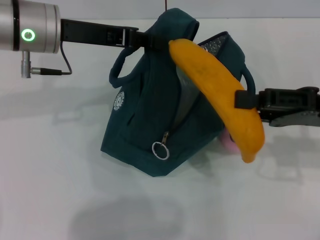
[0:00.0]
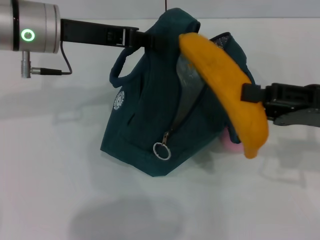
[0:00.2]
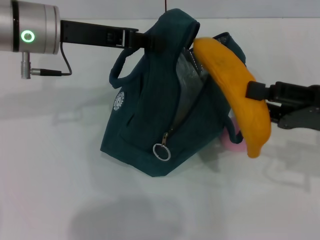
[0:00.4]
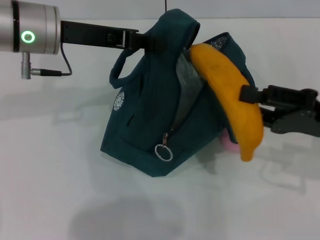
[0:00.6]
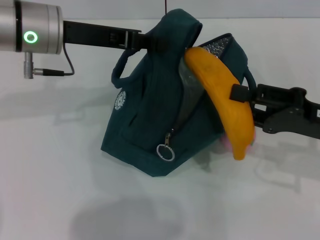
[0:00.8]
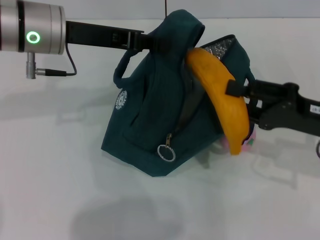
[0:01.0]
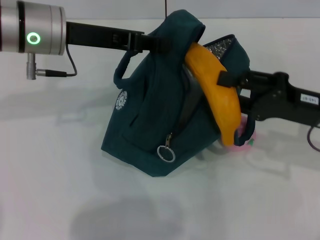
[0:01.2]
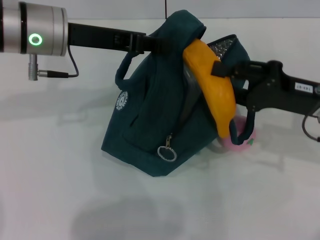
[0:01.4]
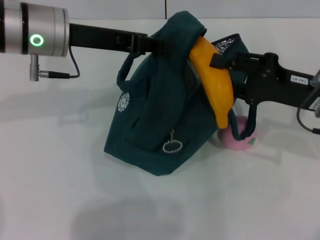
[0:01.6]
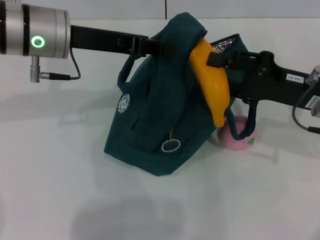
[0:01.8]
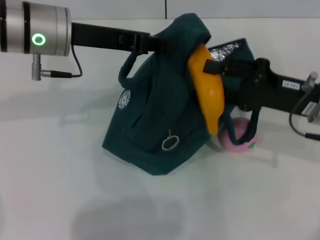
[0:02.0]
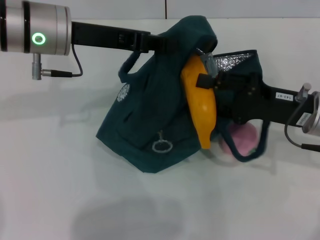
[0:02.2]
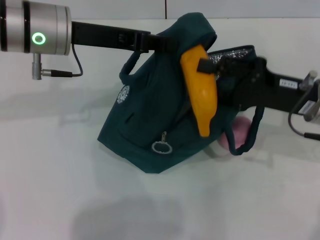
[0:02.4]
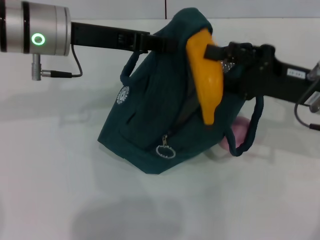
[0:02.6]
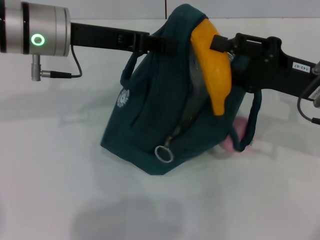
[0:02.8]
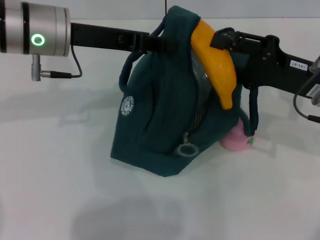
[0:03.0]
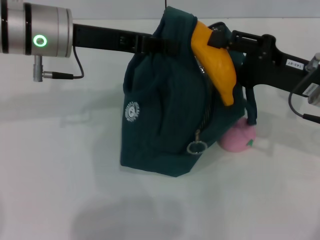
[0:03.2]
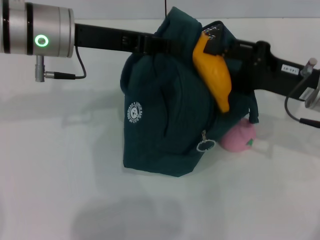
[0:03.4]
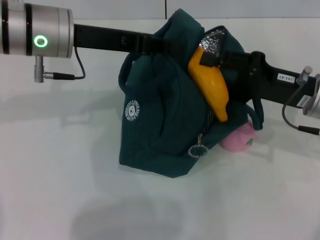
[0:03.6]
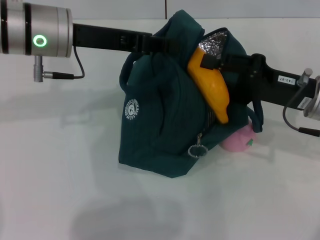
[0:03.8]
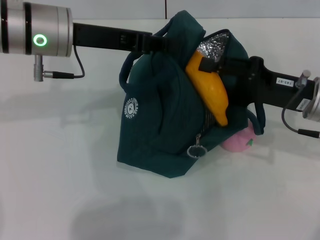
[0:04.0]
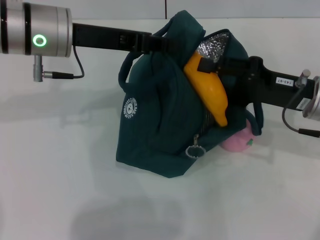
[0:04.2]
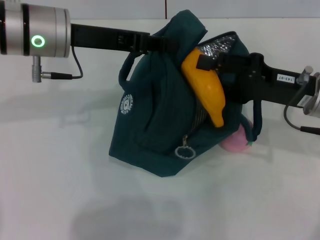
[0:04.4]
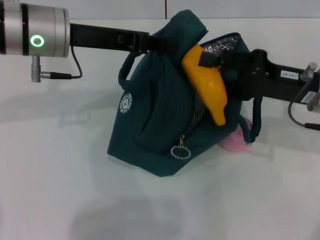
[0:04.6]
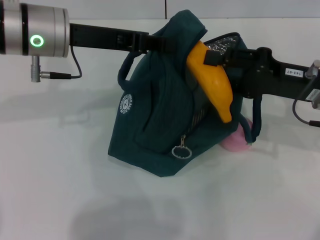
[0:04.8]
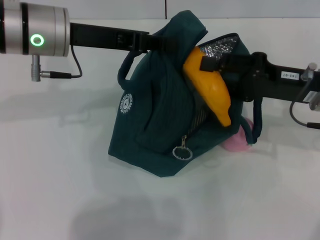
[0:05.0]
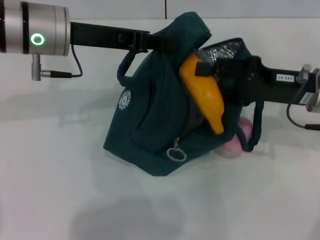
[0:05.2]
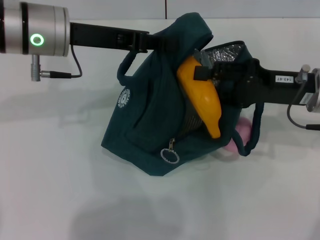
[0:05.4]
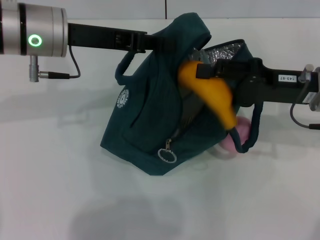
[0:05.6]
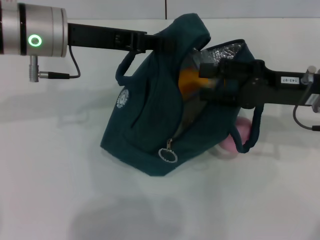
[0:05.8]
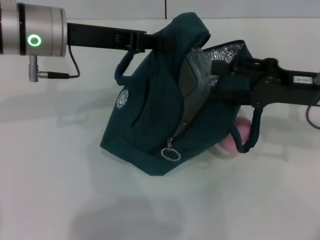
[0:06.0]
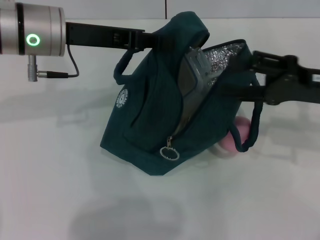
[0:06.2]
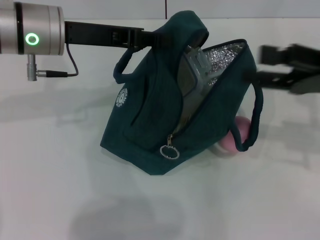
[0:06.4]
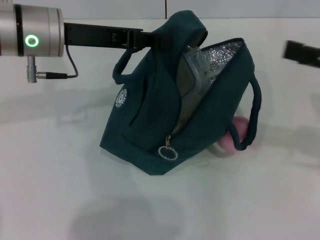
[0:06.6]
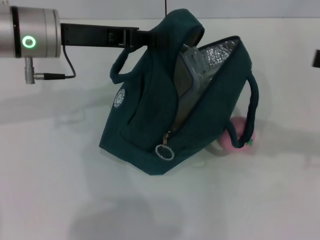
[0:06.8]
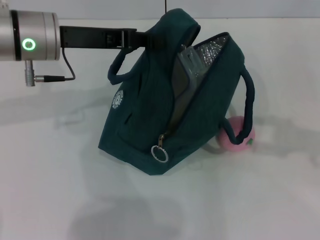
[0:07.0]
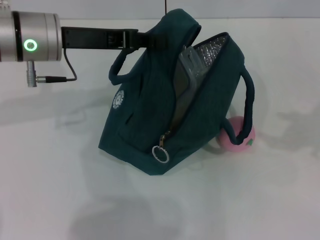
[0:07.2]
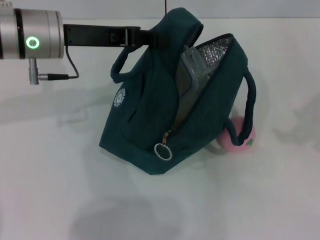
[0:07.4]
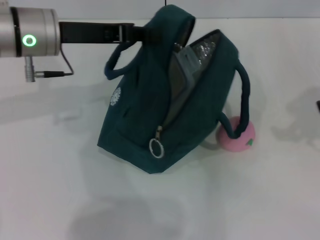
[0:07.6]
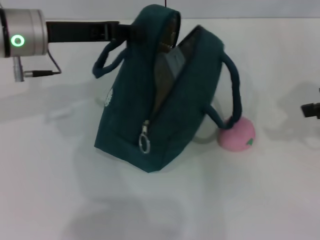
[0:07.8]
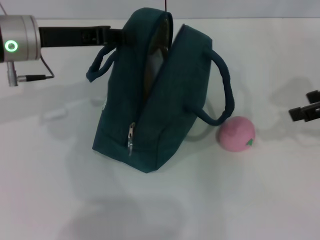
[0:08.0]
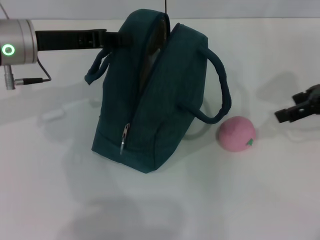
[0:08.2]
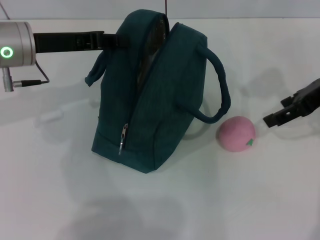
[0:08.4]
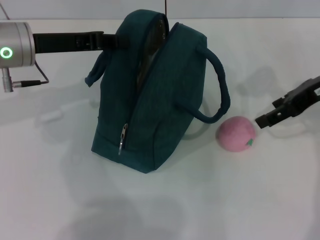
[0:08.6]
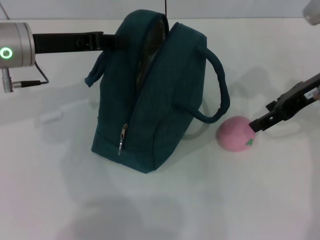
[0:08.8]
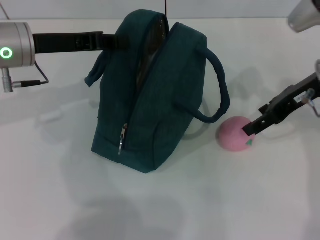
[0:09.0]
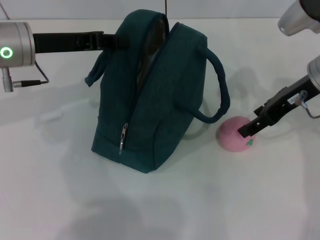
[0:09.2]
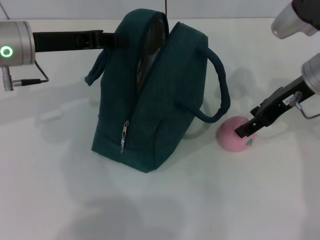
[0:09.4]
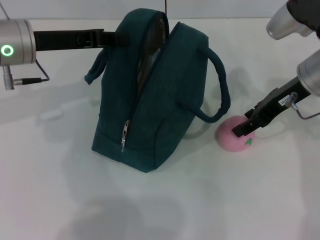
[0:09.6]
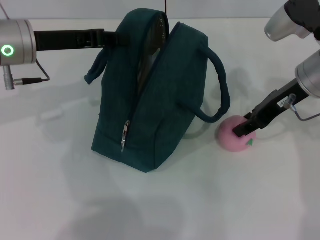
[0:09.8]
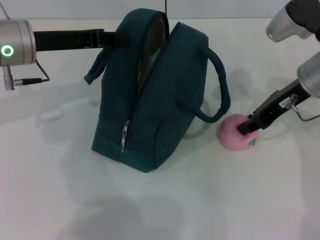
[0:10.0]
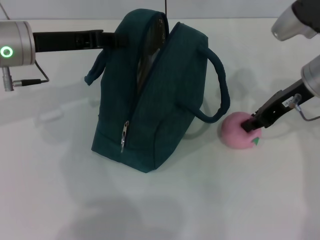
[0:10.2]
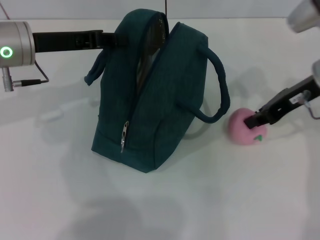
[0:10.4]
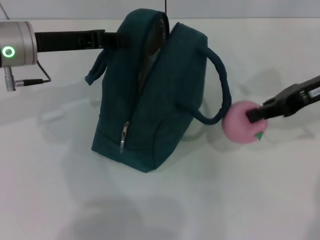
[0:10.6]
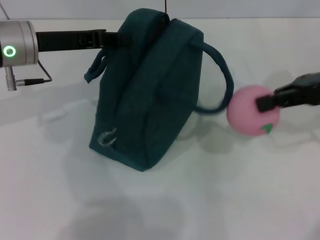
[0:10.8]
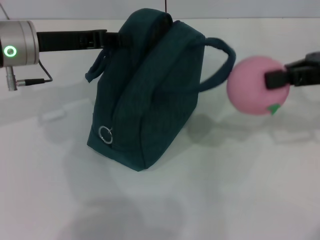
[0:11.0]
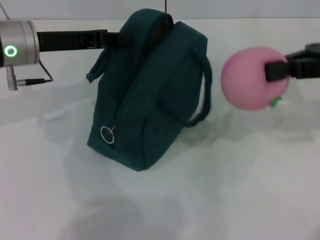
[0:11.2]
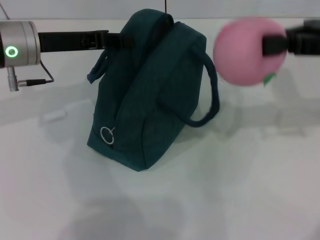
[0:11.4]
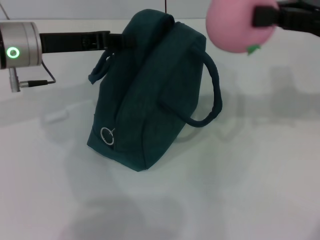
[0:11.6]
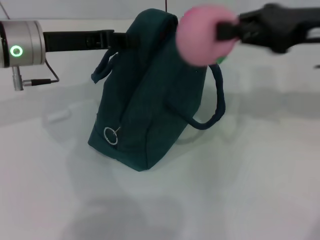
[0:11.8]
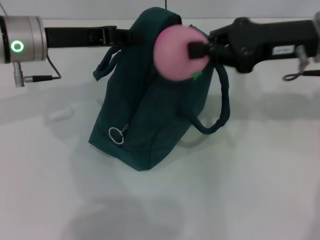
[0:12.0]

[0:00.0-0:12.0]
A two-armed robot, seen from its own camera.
Step, 0:00.0 to 0:06.6: Put the banana into the lunch bag with your right hand.
Step, 0:06.8 to 0:10.2: Grab the peach with your right hand.
0:01.6 to 0:04.4: The grippers move only a little.
0:04.4 to 0:06.0: The right gripper opens its fingers.
0:06.0 to 0:07.6: The right gripper moves upward and to the right, roughly 15 cm.
0:07.6 to 0:09.0: The right gripper travels to the left, forward and downward by about 15 cm.
0:09.0 to 0:10.4: The right gripper closes up.
0:10.4 to 0:12.0: The right gripper goes to the right and returns, about 5 cm each way.

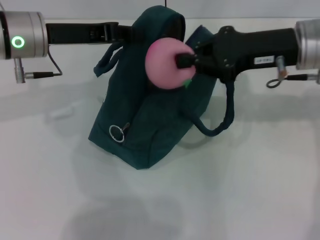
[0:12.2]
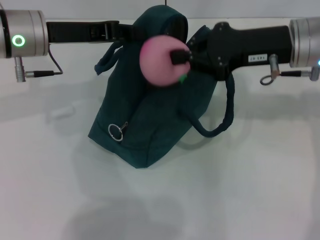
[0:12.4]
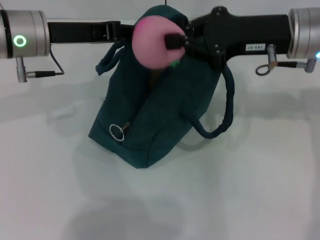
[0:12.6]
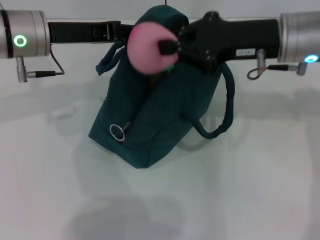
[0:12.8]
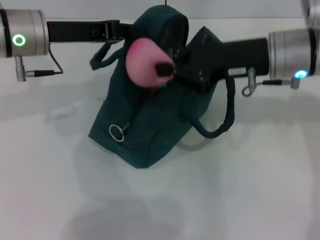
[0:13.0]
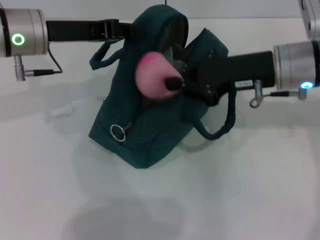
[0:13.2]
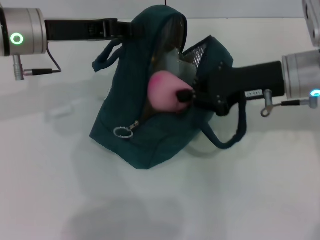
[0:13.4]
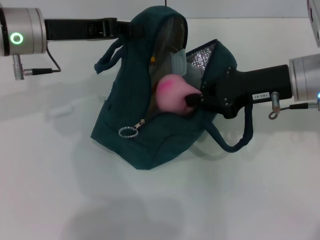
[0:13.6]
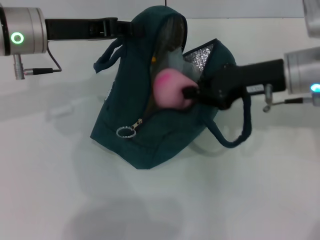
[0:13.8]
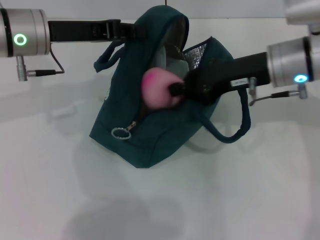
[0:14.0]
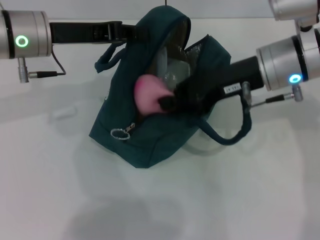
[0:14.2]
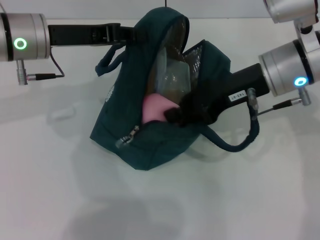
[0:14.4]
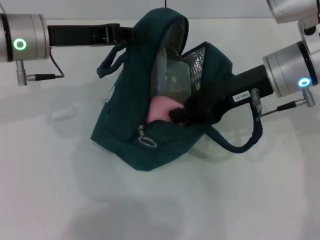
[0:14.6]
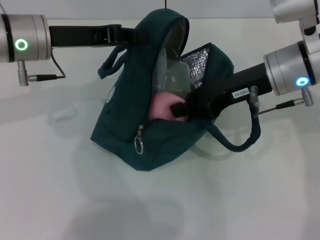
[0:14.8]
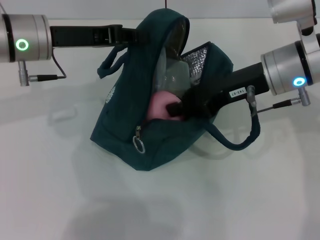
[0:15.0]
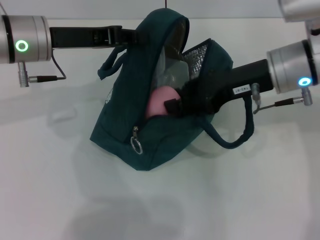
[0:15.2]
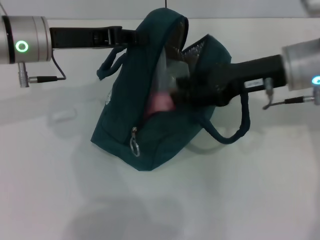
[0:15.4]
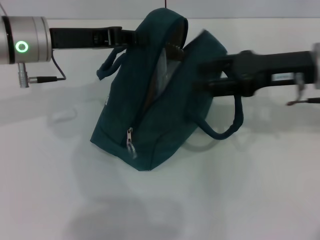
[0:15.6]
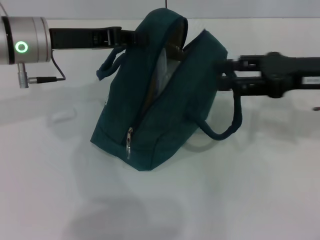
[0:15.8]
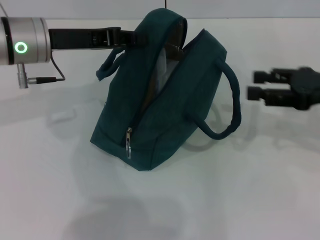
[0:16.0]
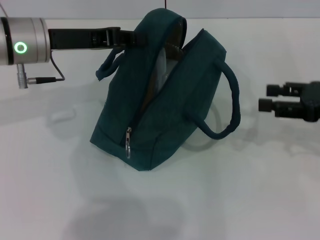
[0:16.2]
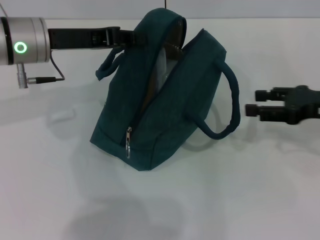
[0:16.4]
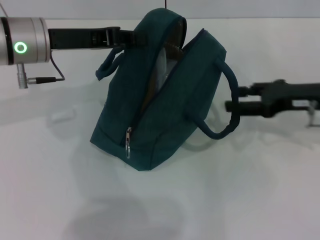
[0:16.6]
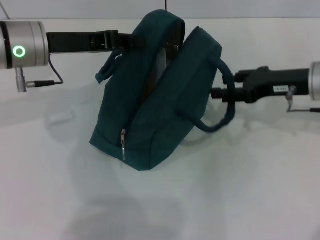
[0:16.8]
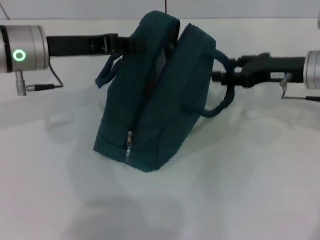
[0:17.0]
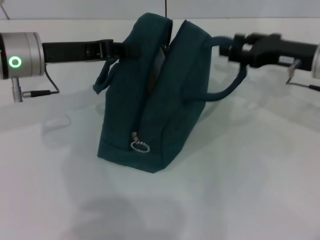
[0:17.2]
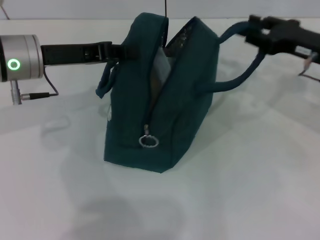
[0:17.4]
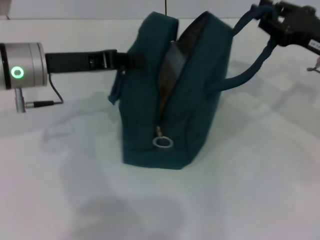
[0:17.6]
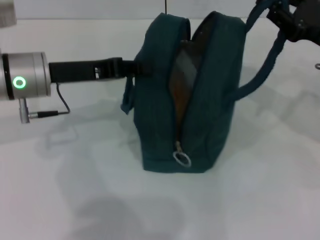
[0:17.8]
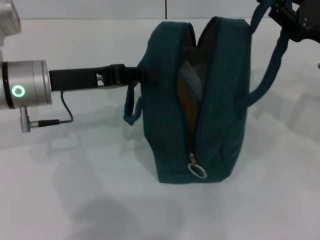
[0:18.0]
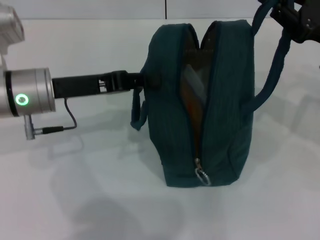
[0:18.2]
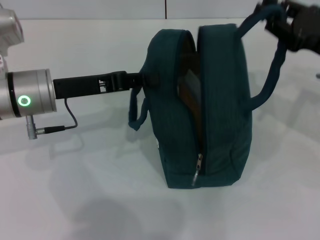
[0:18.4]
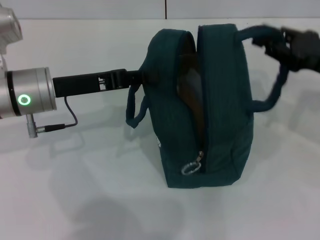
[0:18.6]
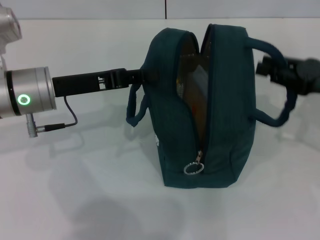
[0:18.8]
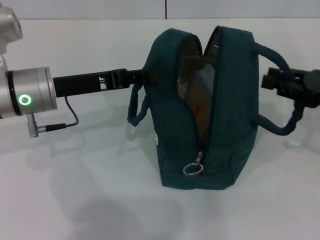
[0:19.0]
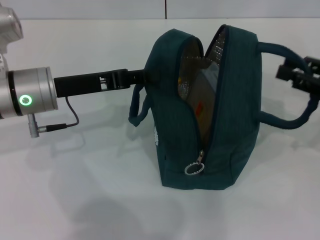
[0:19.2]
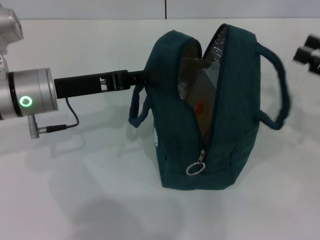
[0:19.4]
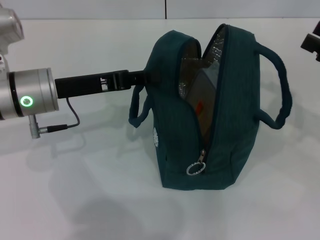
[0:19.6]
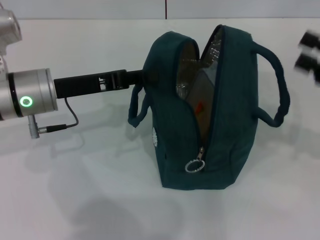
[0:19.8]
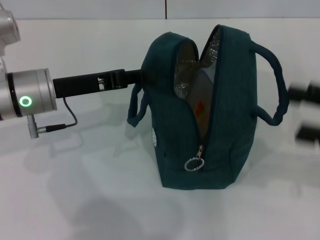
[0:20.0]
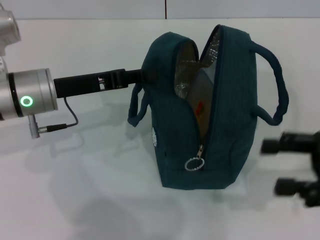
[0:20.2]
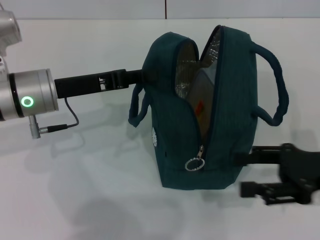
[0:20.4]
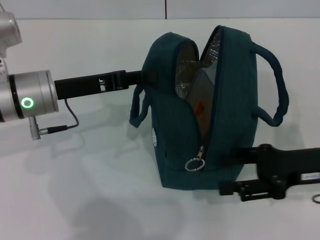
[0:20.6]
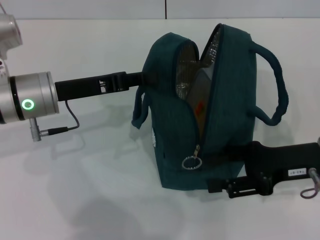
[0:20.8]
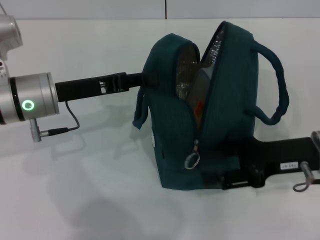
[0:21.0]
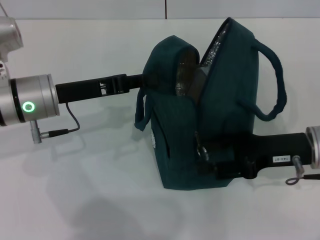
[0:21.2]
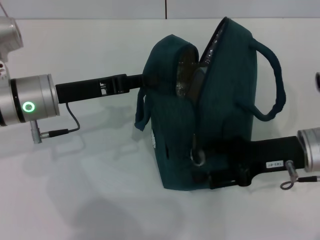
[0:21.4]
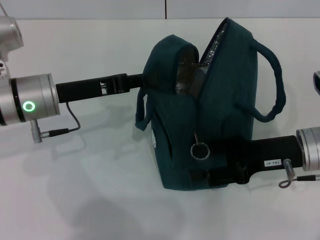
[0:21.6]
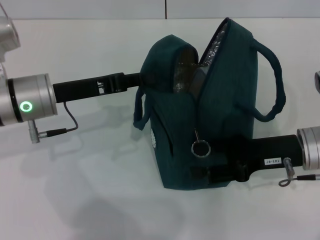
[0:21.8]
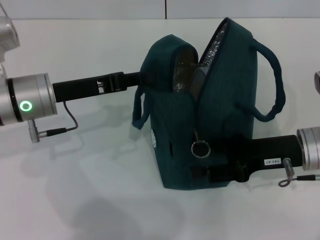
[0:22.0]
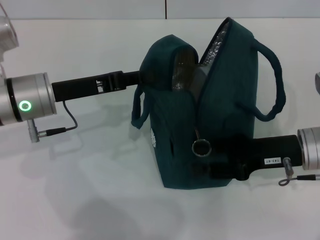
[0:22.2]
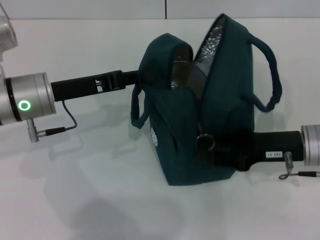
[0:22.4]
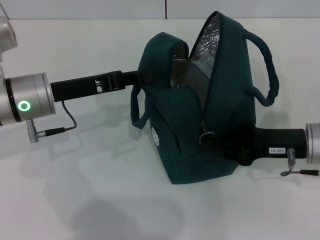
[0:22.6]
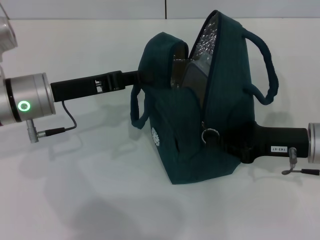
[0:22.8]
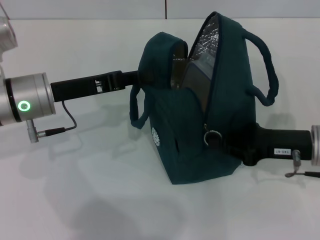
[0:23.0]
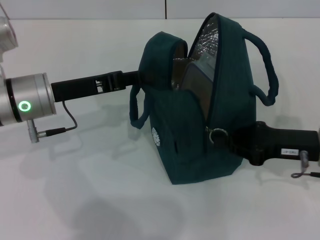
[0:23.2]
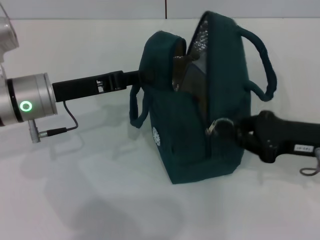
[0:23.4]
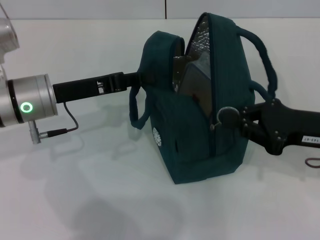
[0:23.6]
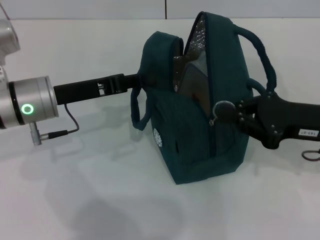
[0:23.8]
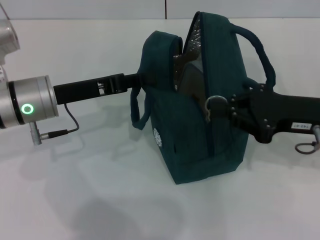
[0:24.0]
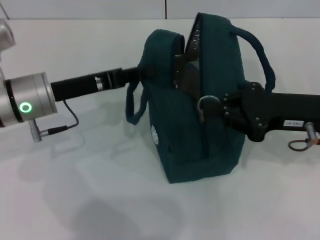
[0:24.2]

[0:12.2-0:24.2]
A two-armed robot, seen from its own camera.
Step, 0:15.6 to 0:19.0: Hold the lunch bag with your right hand.
0:13.8 to 0:15.2: The grippers make only small movements.
0:15.2 to 0:16.6: The right gripper goes approximately 10 cm to the right, and opens.
0:16.6 to 0:18.2: The left gripper moves approximately 5 cm, while the right gripper closes.
0:18.2 to 0:19.8: The right gripper travels backward and to the right by about 10 cm, and opens up.
0:19.8 to 0:21.2: The right gripper goes some 10 cm to the left and downward.
0:21.2 to 0:22.6: The right gripper closes its fingers.
0:22.6 to 0:24.2: The right gripper travels upward by roughly 5 cm.
